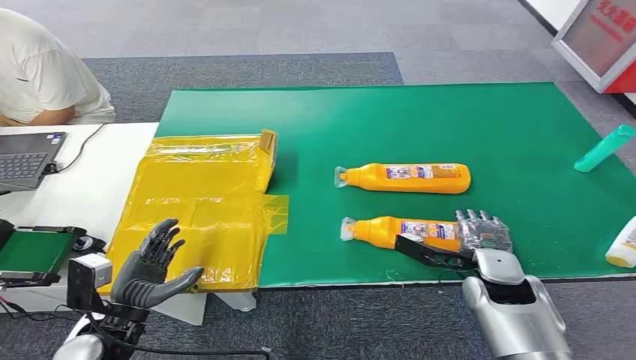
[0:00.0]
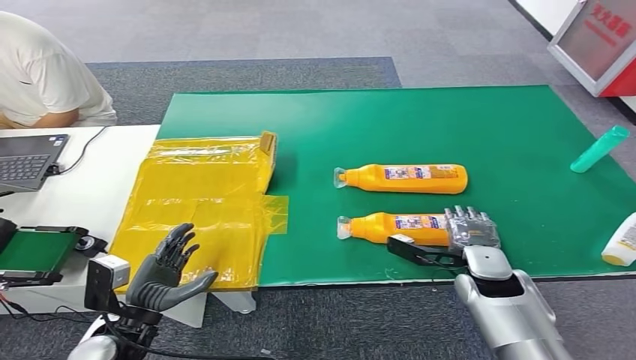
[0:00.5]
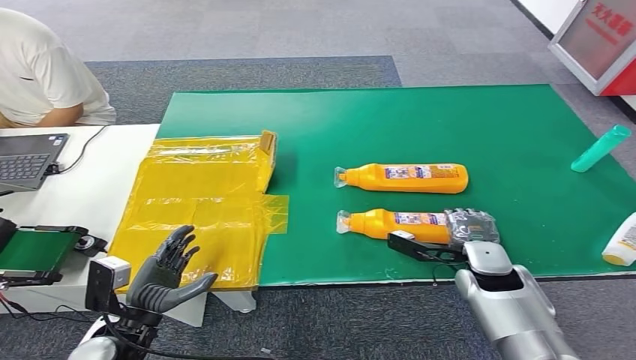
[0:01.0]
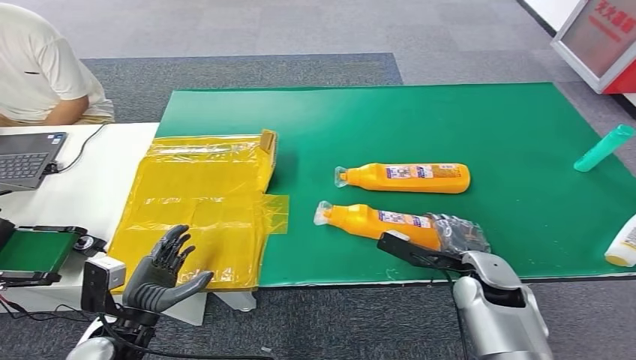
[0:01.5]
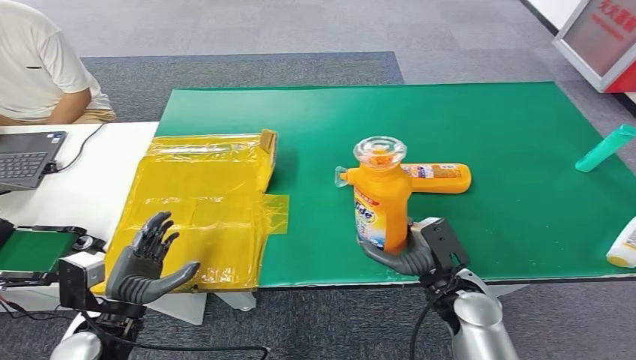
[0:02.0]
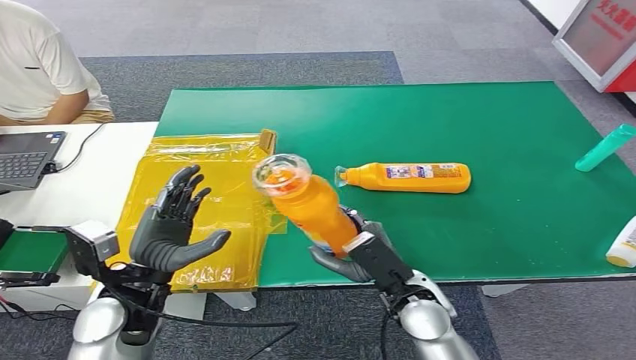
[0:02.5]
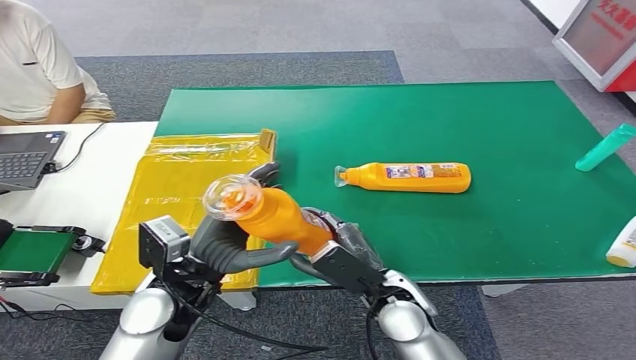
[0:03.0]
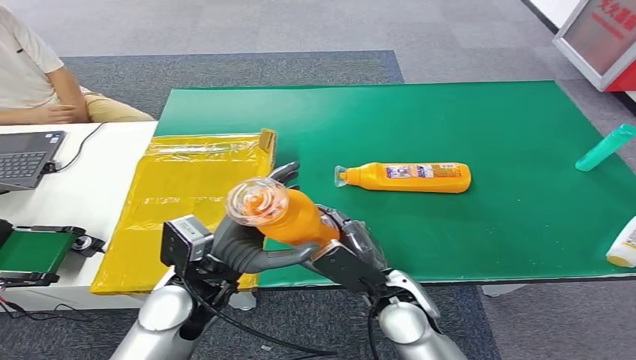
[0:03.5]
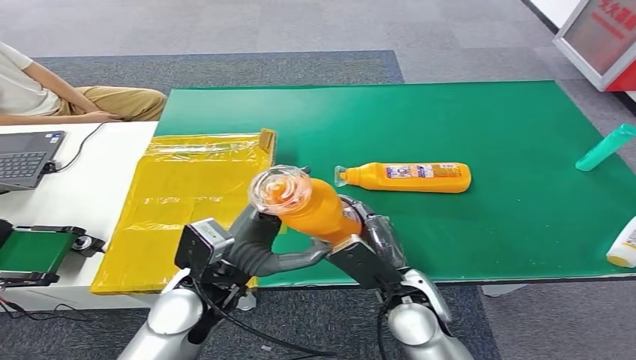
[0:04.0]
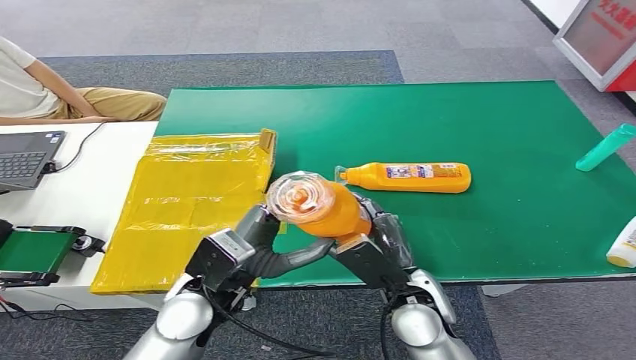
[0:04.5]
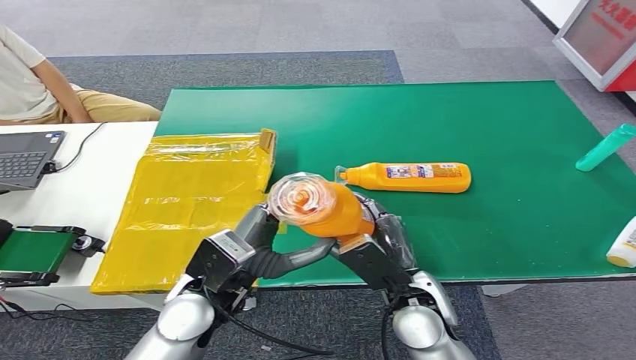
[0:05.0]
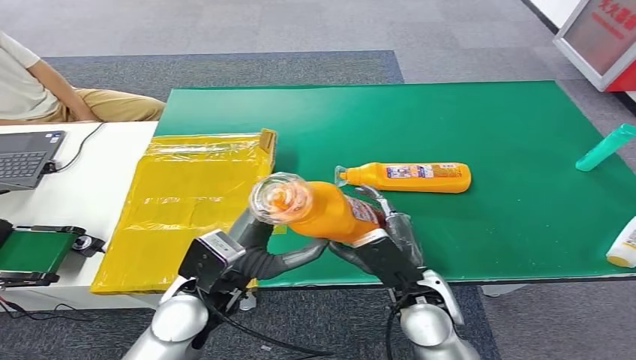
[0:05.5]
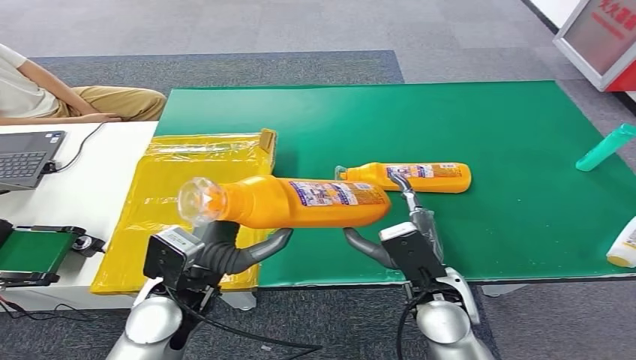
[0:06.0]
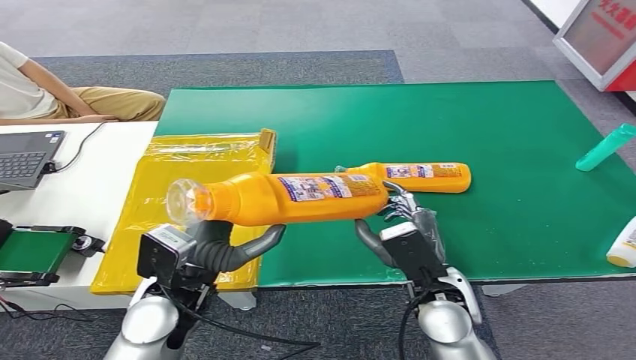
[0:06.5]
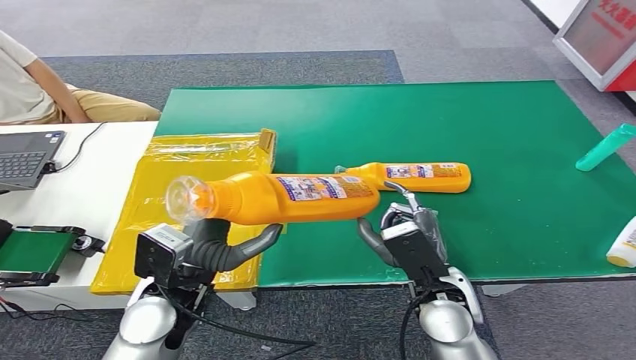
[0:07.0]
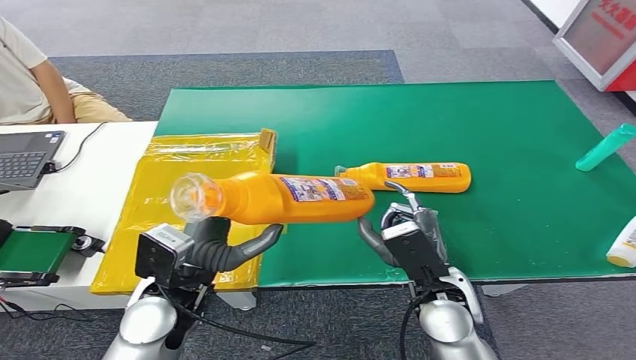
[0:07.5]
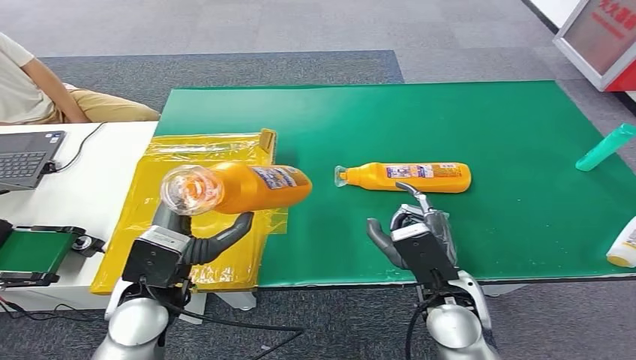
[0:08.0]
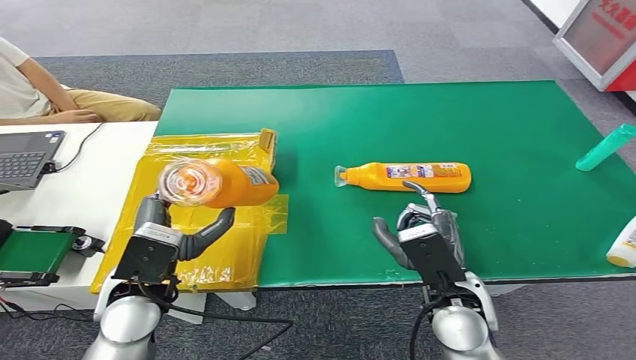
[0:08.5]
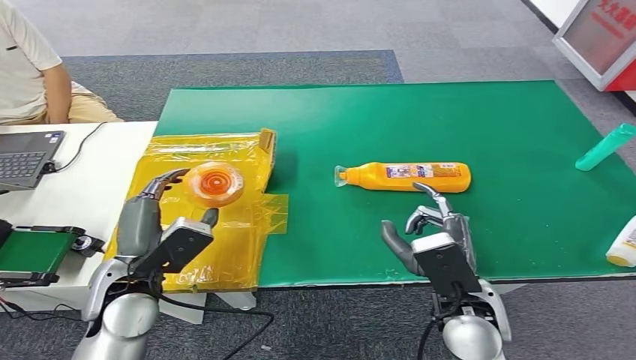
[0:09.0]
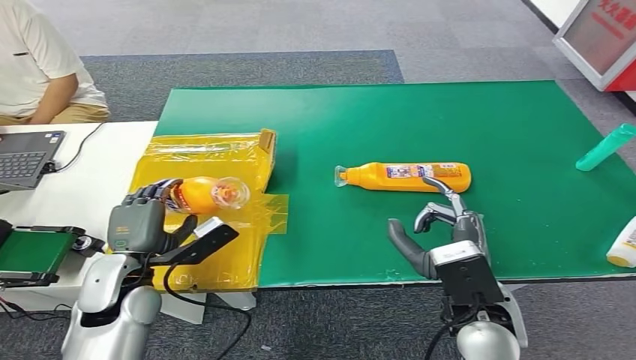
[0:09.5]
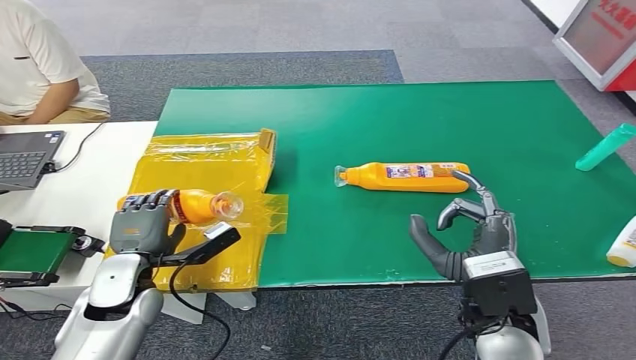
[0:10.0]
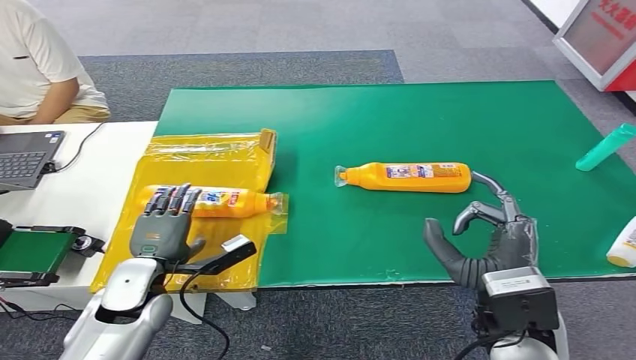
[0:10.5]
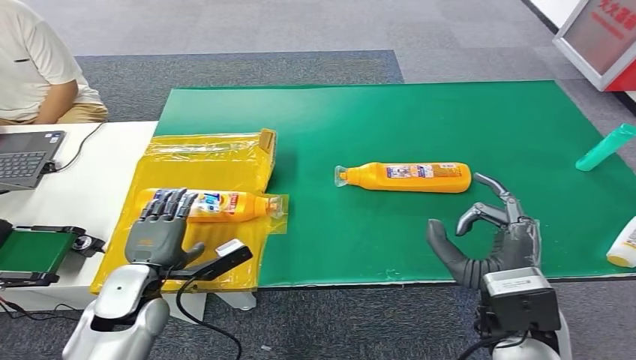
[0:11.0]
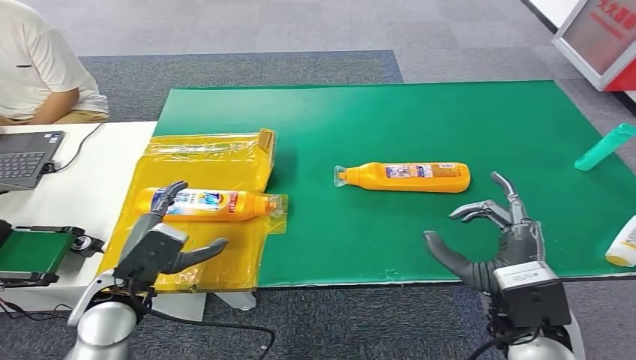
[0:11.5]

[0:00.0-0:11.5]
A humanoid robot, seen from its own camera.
Step, 0:00.0 to 0:02.0: Pick up the bottle from the table.
Step, 0:02.5 to 0:11.5: Turn the bottle to the front side.
0:04.0 to 0:06.0: The hands move only a little.
0:06.0 to 0:07.5: Neither hand changes place.
0:07.5 to 0:09.5: The right hand changes place by about 5 cm. Meanwhile the left hand heads to the left, covering some 10 cm.
0:09.5 to 0:11.5: The right hand moves roughly 5 cm.
